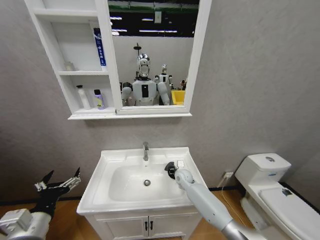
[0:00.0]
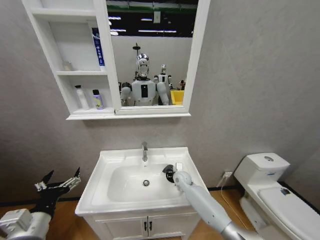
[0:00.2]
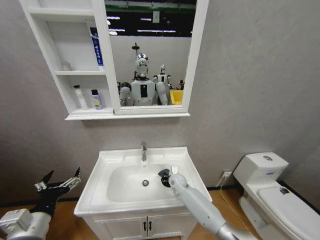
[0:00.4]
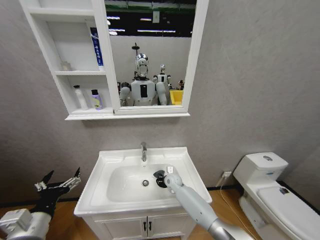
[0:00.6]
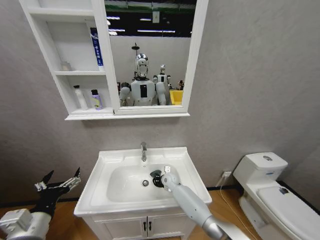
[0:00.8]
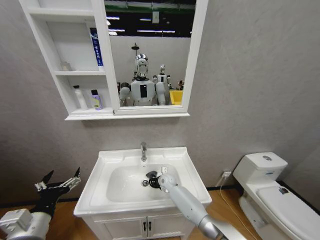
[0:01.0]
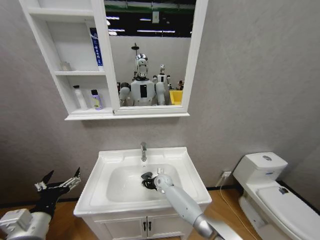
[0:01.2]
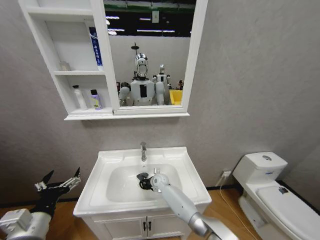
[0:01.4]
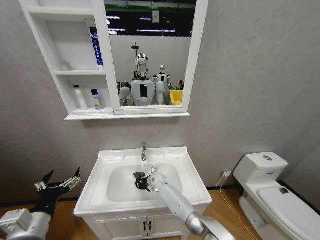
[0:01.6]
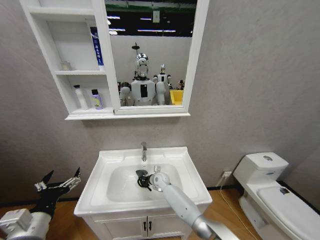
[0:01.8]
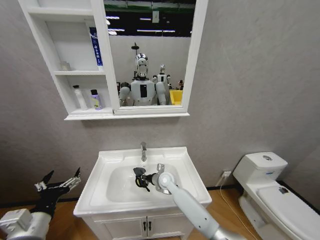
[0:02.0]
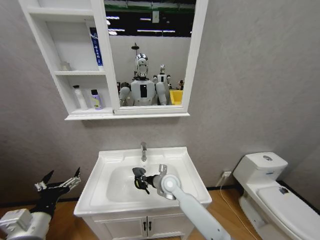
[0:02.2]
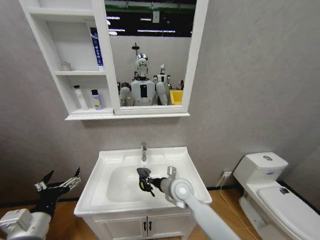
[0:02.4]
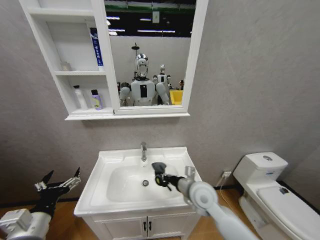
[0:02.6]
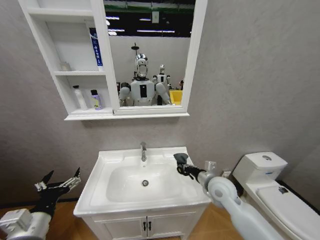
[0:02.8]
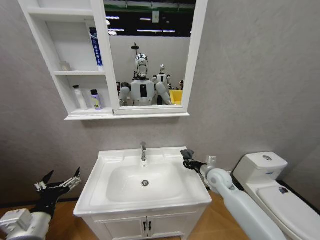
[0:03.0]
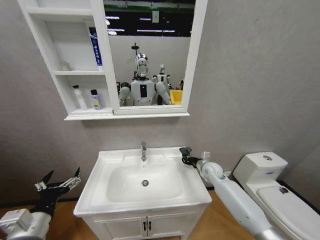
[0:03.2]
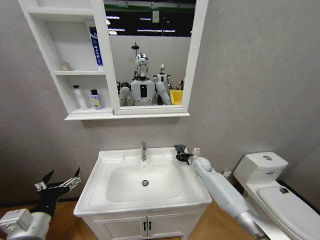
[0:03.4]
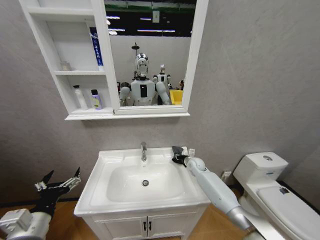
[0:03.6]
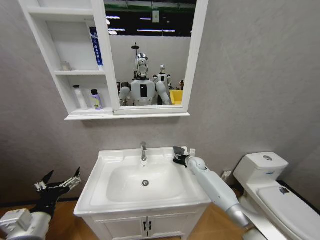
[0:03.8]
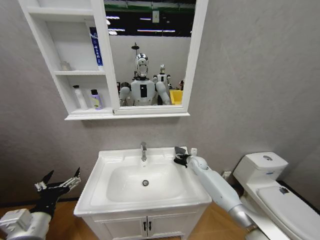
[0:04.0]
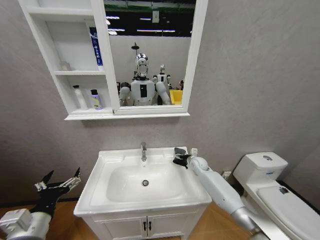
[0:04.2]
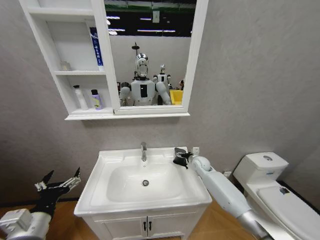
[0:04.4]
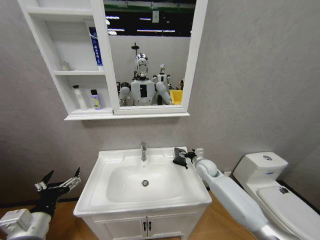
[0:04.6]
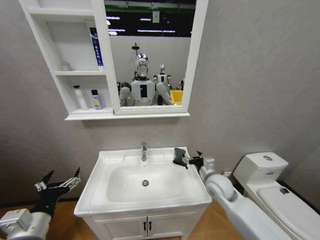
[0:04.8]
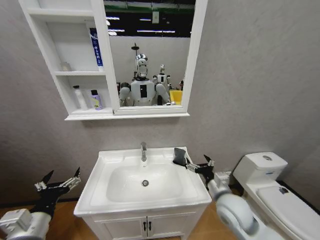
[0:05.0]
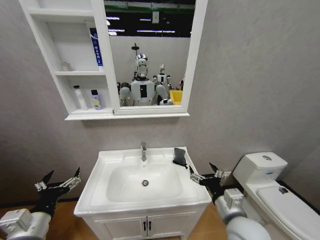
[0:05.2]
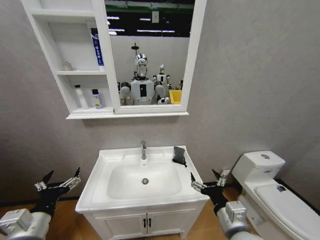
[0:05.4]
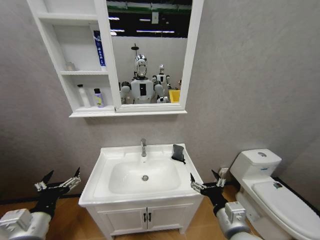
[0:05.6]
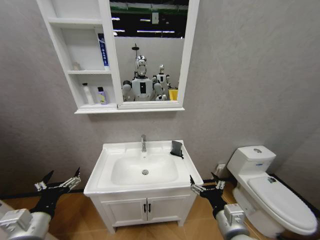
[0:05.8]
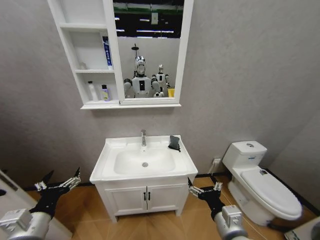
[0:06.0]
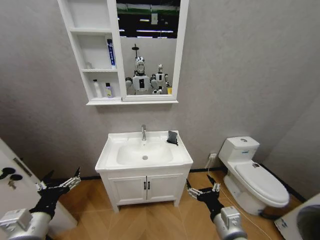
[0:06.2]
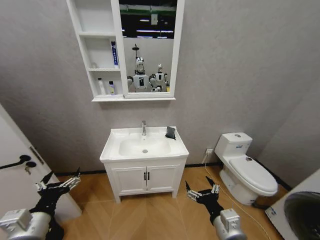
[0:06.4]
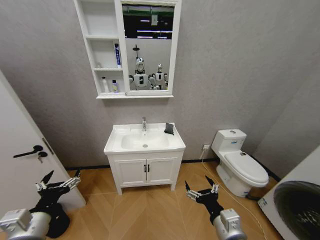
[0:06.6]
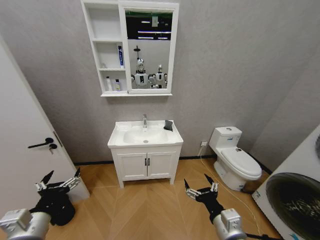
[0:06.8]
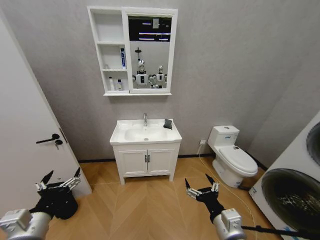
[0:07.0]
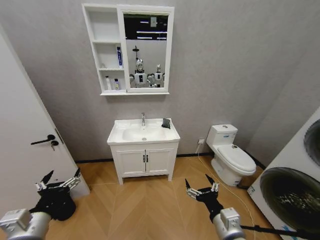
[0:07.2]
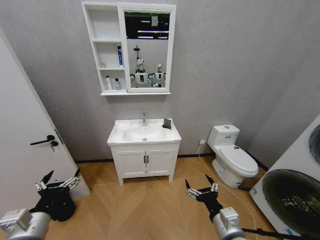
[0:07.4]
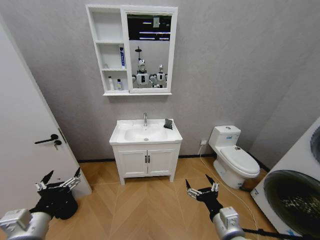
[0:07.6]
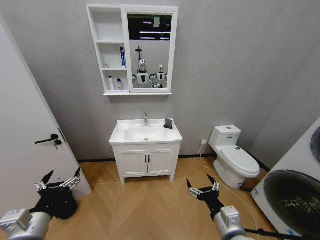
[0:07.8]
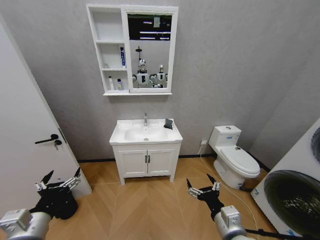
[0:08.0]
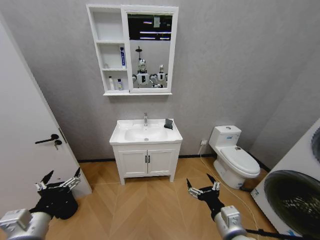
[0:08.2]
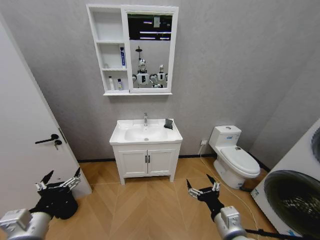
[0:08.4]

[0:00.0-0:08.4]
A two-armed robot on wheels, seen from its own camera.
Task of the whole recording: Move facial cleanser and shampoo from washbasin to cabinet, then wipe washbasin with towel.
0:00.0 to 0:01.4: The right gripper moves to the left and downward, some 15 cm.
0:01.4 to 0:02.8: The right gripper goes about 35 cm upward, to the right and backward.
0:02.8 to 0:04.2: The right gripper shifts about 25 cm forward and downward, and opens its fingers.
0:04.2 to 0:05.6: The right gripper goes about 35 cm backward.
0:07.0 to 0:08.4: Both grippers stay put.
